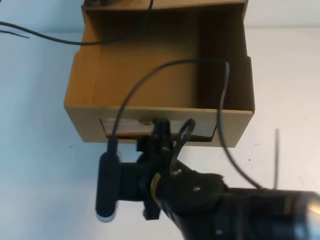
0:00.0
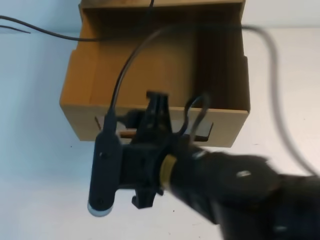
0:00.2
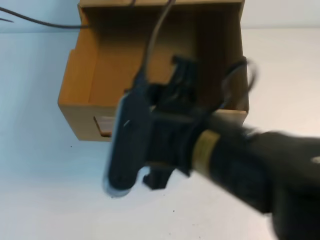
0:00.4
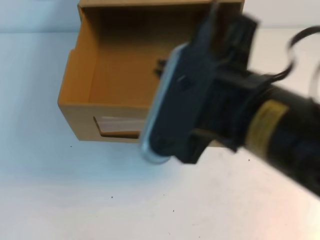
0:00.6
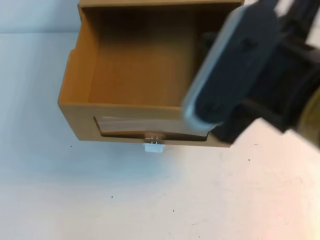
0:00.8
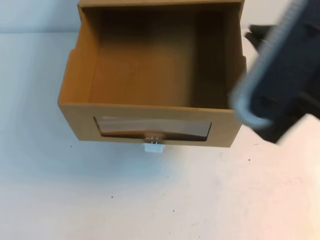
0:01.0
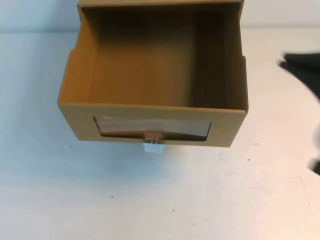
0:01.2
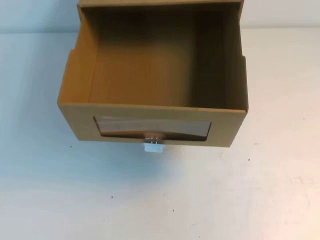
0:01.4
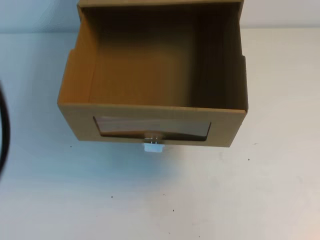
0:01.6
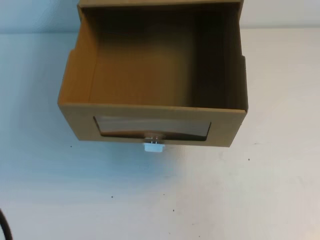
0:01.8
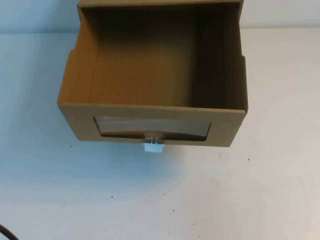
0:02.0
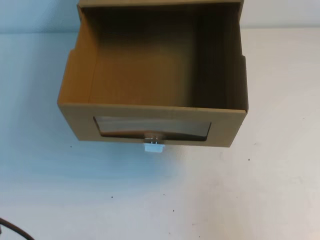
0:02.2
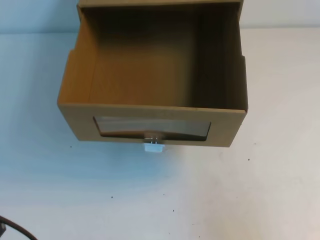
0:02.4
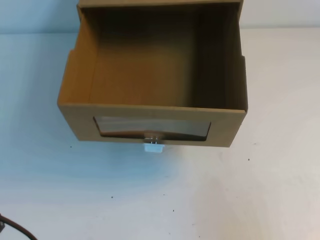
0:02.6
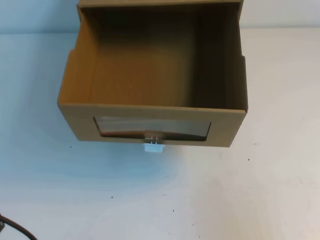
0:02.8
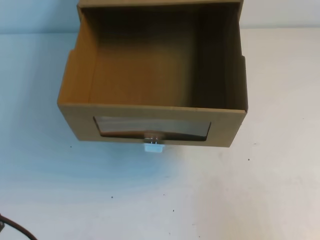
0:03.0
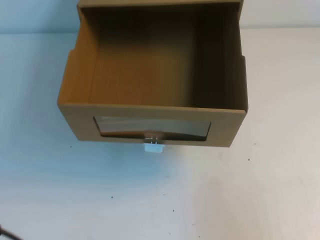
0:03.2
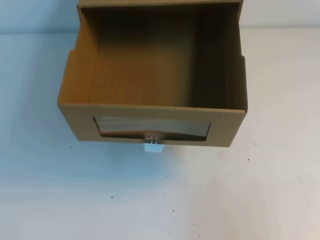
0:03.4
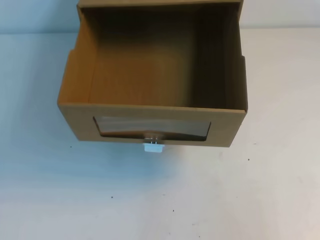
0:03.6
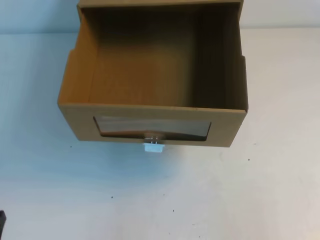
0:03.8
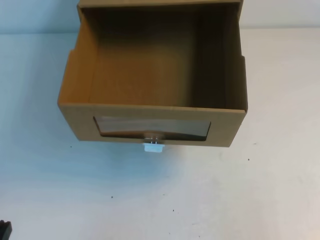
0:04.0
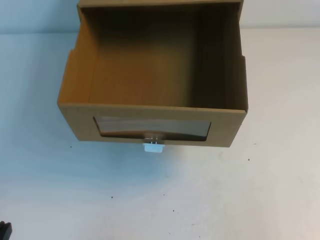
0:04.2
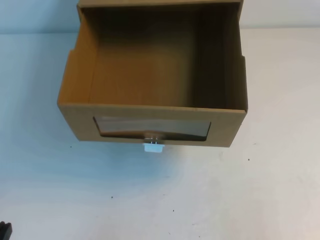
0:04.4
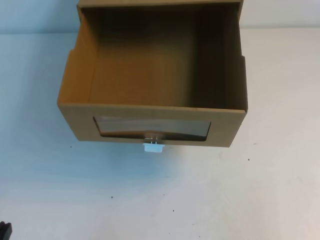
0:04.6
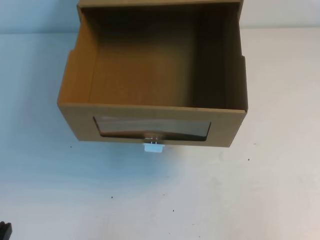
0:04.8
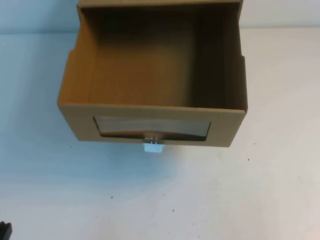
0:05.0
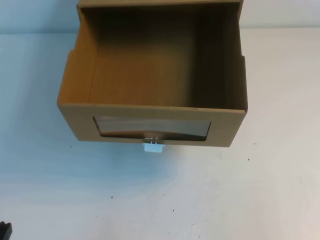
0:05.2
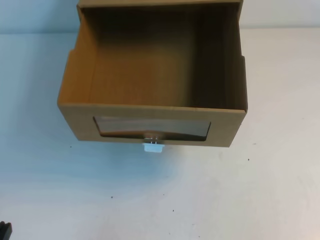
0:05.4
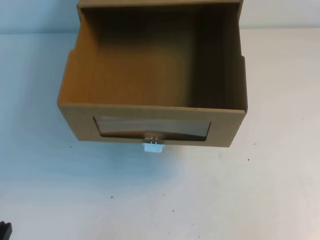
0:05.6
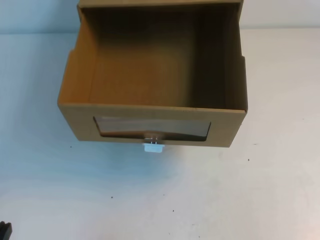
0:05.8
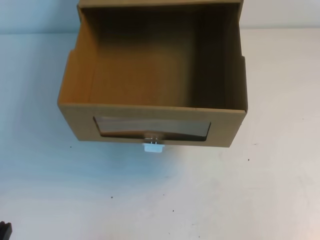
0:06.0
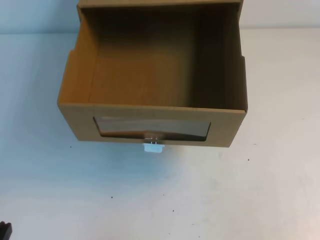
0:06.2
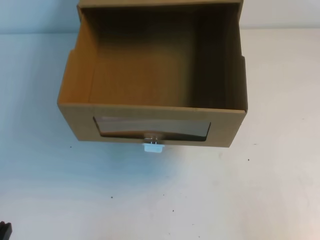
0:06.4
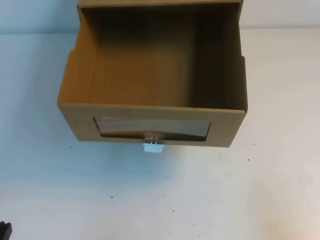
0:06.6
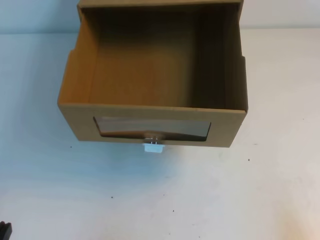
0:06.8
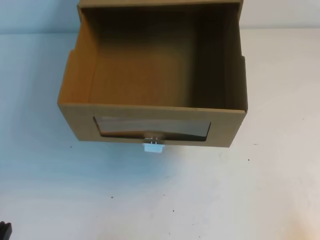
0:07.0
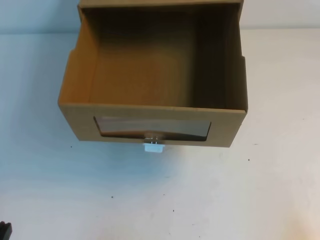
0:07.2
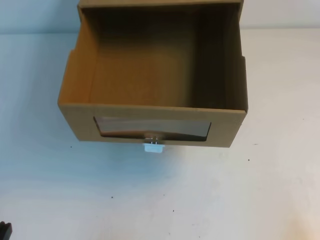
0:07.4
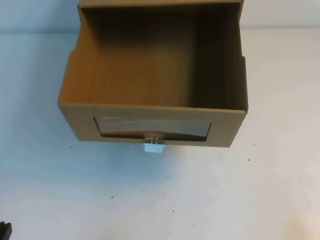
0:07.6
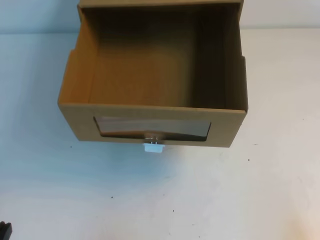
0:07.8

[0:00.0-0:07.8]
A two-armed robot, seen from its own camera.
Task of the whole recording: open the shoebox on the table.
Step, 0:00.0 to 0:07.8: Open the shoe box.
0:00.0 to 0:01.6: The right gripper heads to the right and upward, covering some 30 cm, and closes. The left gripper moves backward and upward, some 40 cm.
0:01.6 to 0:03.2: The left gripper is displaced downward by approximately 25 cm.

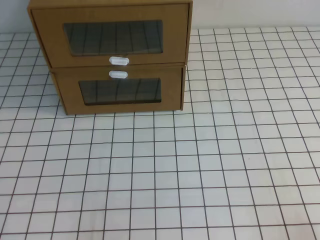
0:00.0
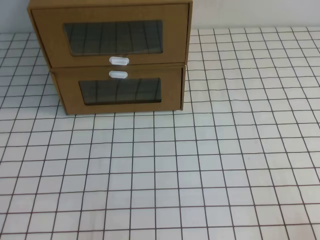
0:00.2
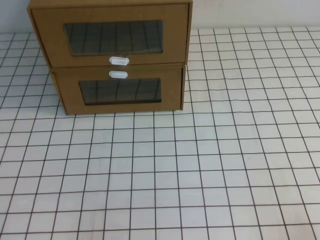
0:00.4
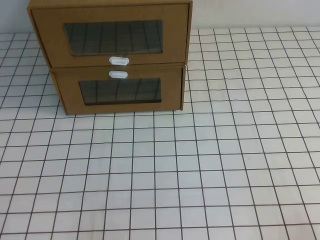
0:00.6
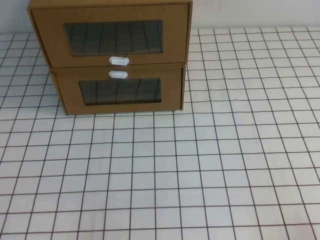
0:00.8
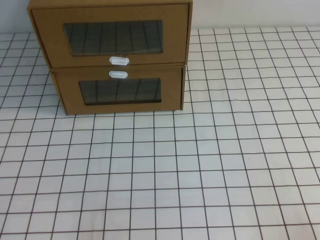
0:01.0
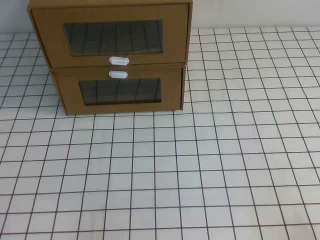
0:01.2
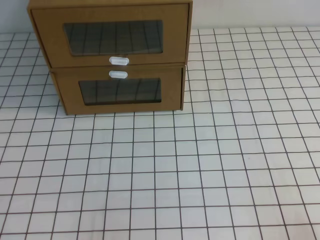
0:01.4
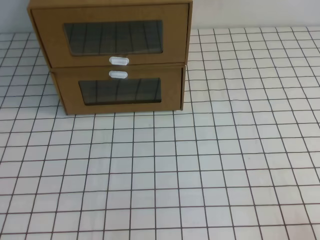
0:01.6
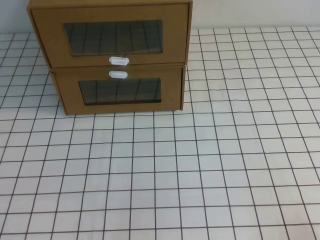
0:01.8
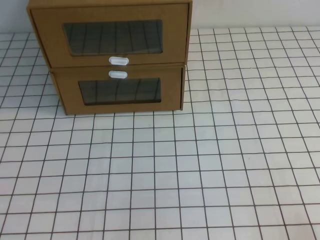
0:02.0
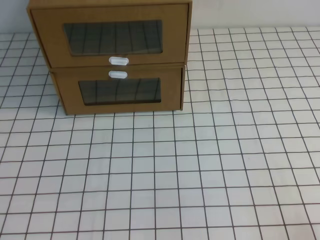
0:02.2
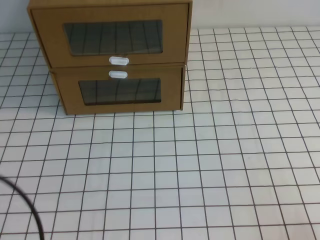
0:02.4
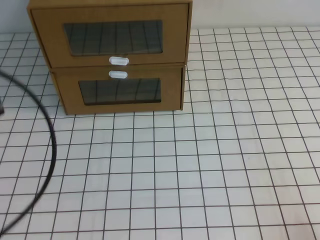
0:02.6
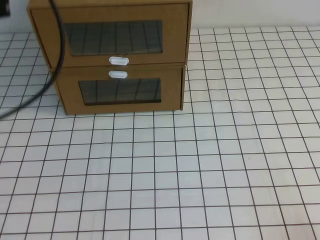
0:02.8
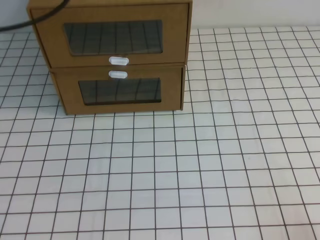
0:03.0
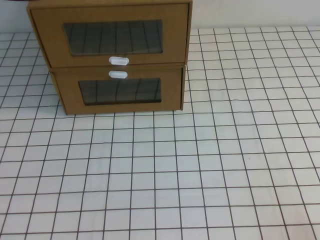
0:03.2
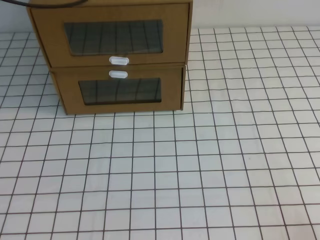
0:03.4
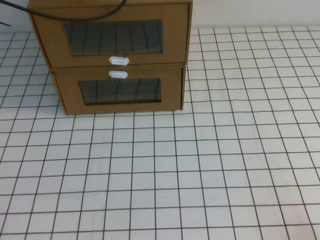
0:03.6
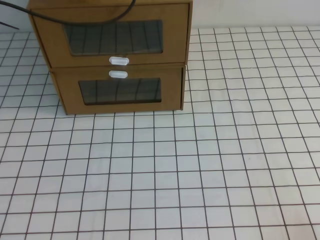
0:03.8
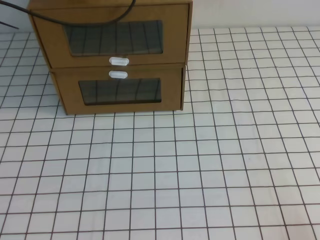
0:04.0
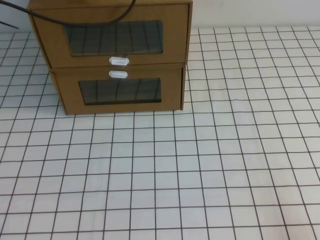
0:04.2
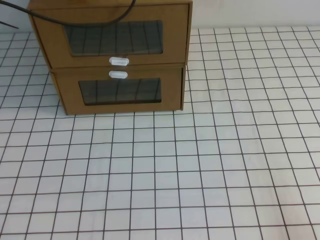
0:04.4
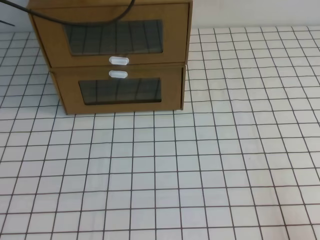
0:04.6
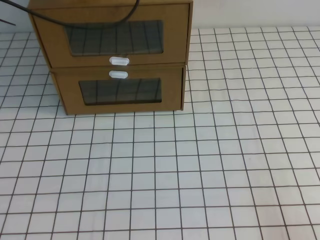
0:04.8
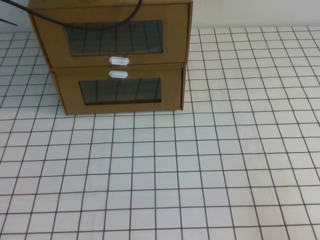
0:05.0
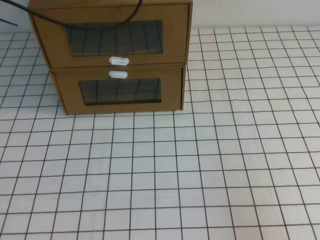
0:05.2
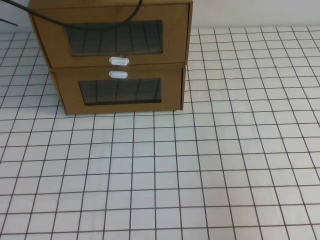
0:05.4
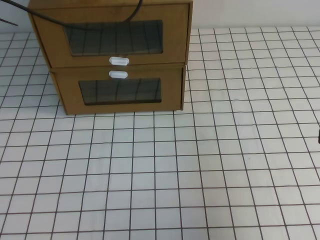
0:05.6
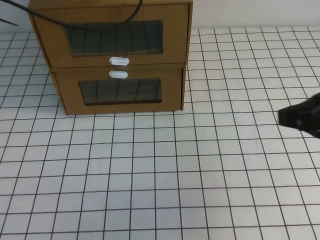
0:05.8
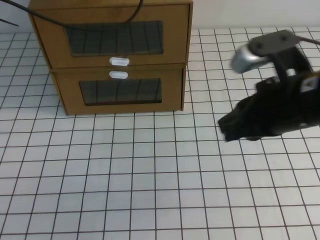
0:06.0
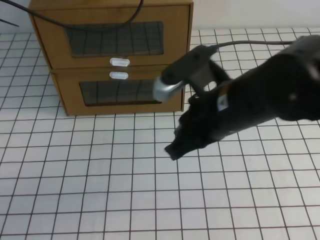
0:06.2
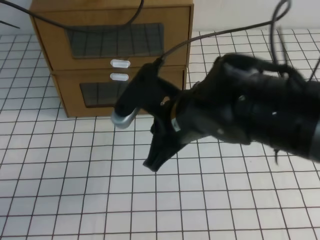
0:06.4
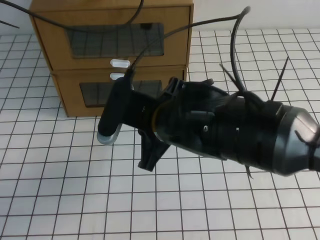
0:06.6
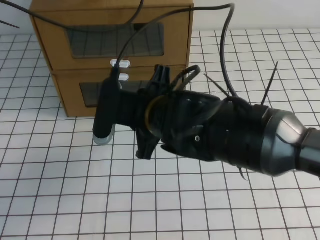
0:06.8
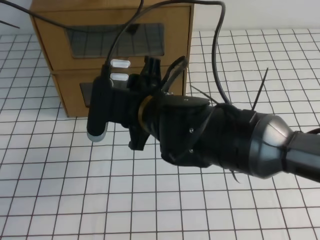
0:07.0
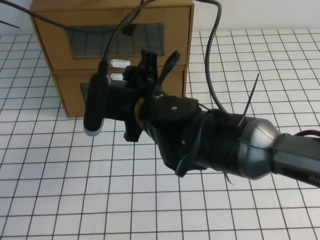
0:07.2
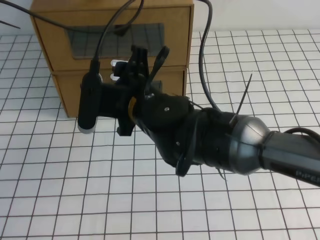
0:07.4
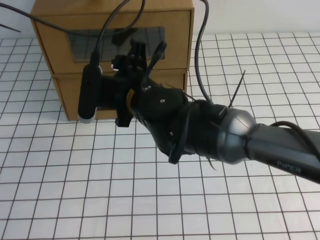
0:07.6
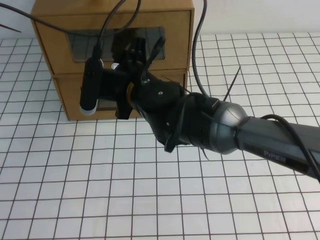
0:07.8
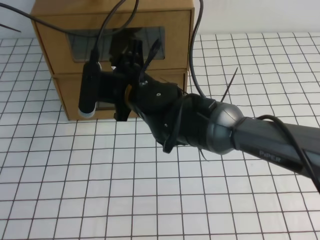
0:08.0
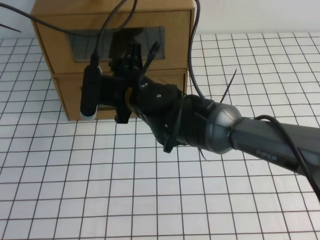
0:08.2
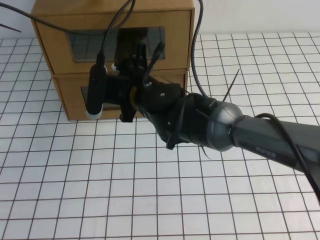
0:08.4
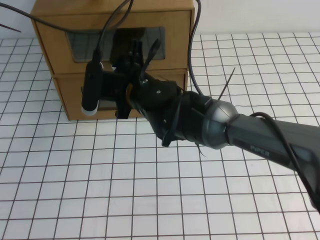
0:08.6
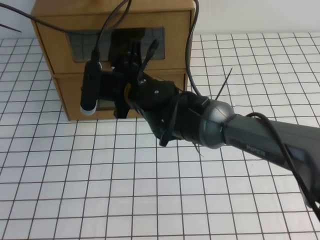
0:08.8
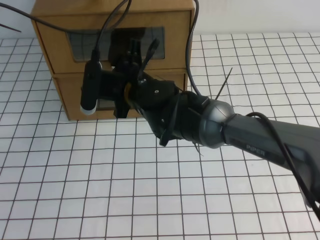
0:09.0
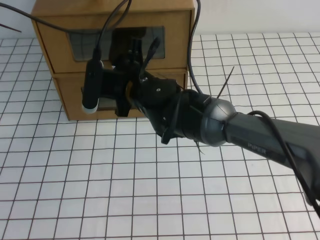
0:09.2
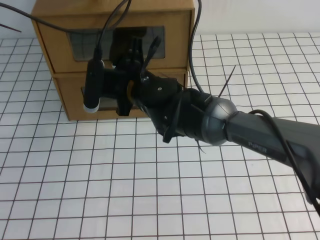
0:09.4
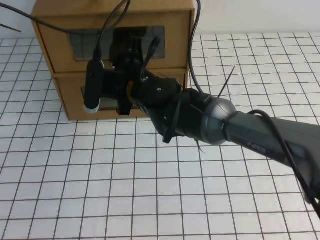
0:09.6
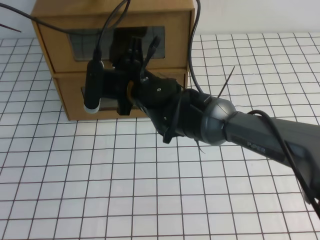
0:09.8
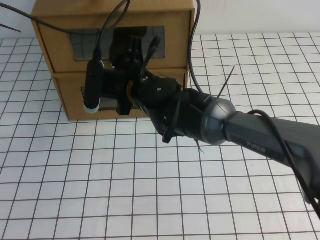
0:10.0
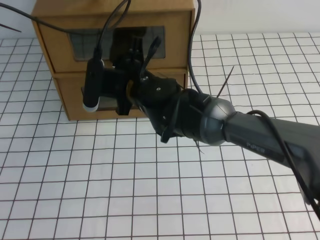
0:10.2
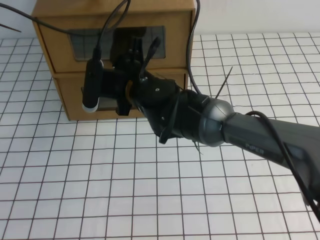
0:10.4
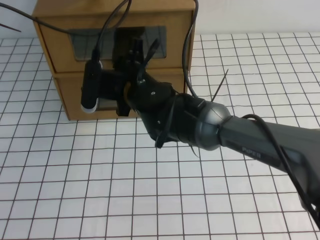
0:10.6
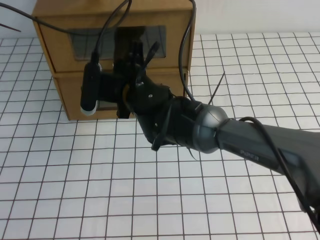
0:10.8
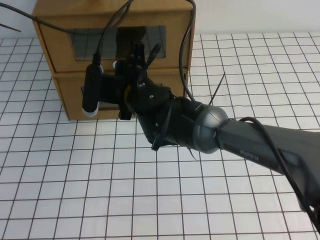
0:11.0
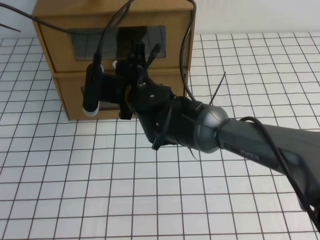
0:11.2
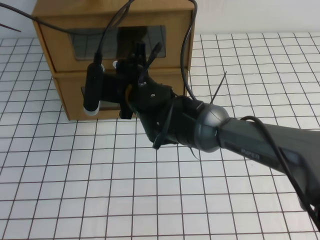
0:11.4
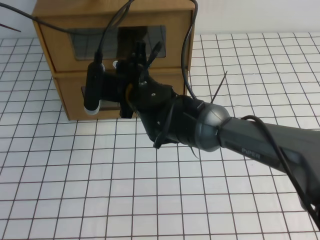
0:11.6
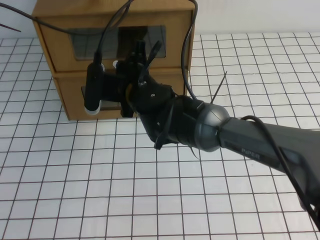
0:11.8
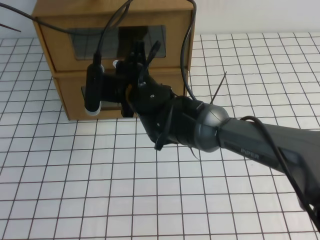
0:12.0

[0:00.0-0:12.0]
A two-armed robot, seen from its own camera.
Task of the whole recording: open the shoebox on the white tablecloth.
0:03.0 to 0:04.4: The left gripper goes roughly 15 cm forward and downward.
0:04.4 to 0:06.0: The right gripper heads forward, to the left and upward, covering roughly 25 cm.
0:06.0 to 0:07.6: The right gripper moves to the left, some 20 cm, and opens up.
0:07.6 to 0:09.0: The right gripper shifts by some 5 cm.
0:09.0 to 0:10.4: The two grippers keep their place.
0:10.4 to 0:12.0: The right gripper closes its fingers.

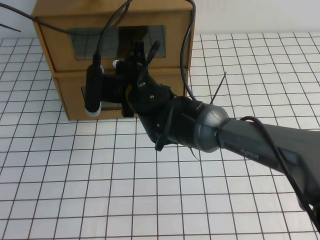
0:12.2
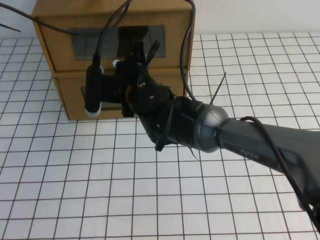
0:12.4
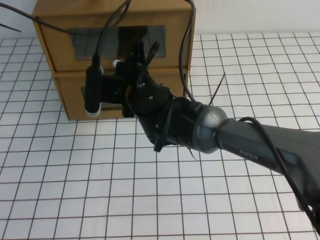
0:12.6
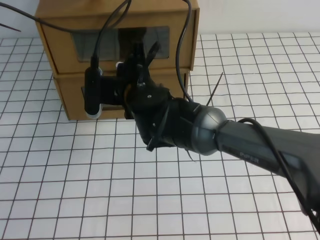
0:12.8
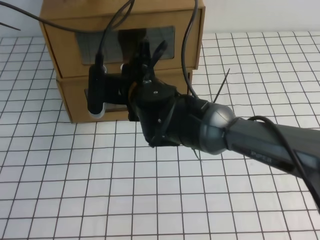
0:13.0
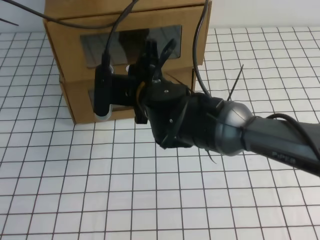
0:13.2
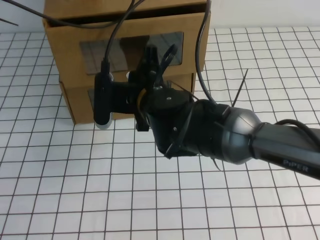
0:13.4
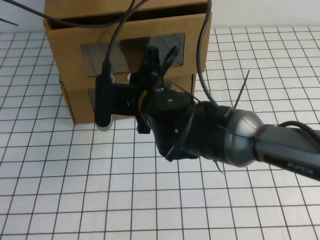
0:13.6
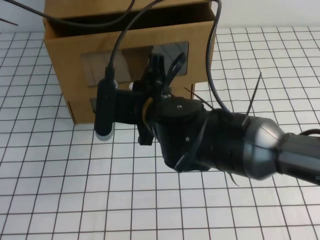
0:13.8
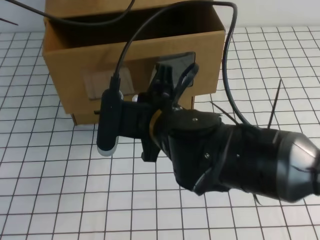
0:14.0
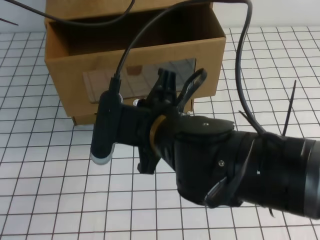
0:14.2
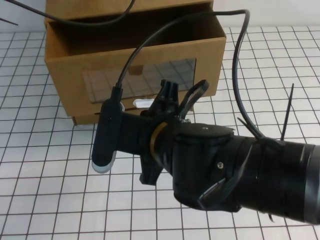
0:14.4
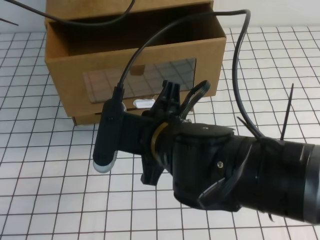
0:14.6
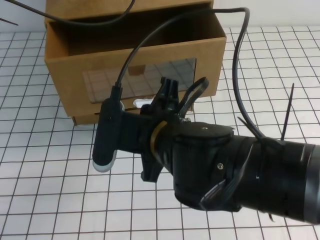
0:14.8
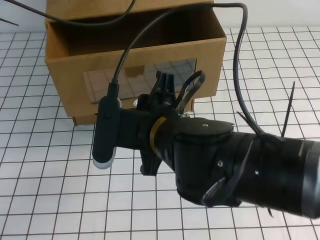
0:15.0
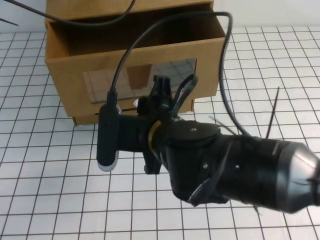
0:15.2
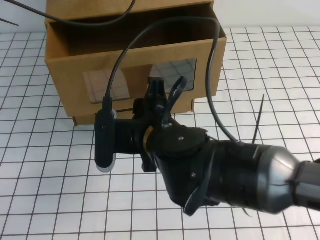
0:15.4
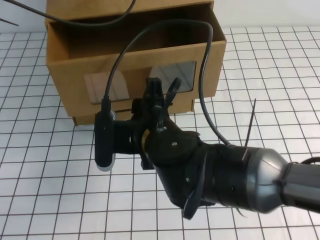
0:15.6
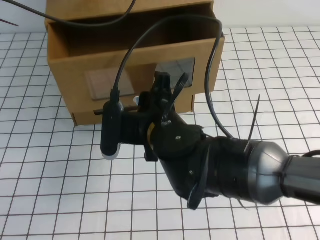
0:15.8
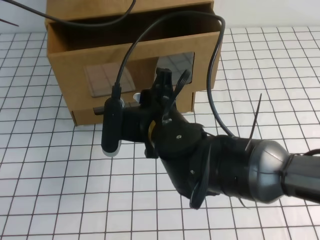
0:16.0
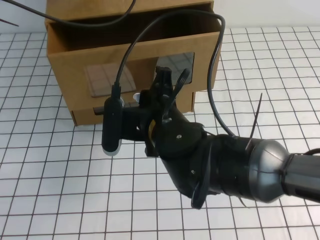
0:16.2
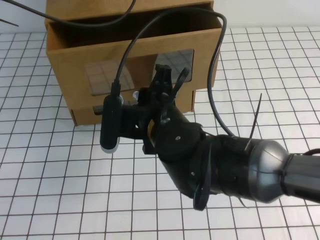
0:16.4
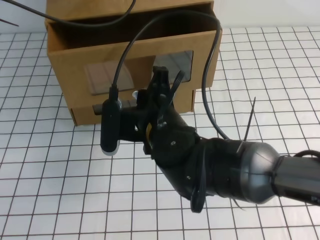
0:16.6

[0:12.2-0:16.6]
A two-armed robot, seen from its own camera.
Task of the whole recording: open the shoebox on the white tablecloth.
0:12.2 to 0:13.6: The right gripper is displaced backward by approximately 5 cm.
0:13.6 to 0:15.2: The right gripper heads backward, covering roughly 5 cm, and opens.
0:15.2 to 0:16.6: The right gripper closes.
